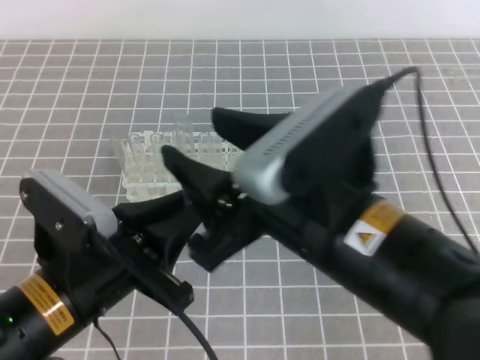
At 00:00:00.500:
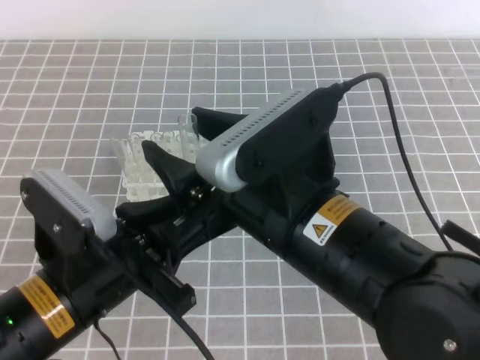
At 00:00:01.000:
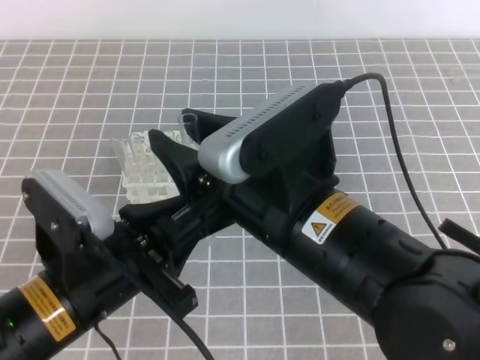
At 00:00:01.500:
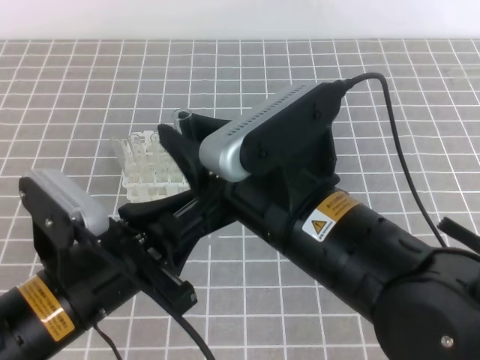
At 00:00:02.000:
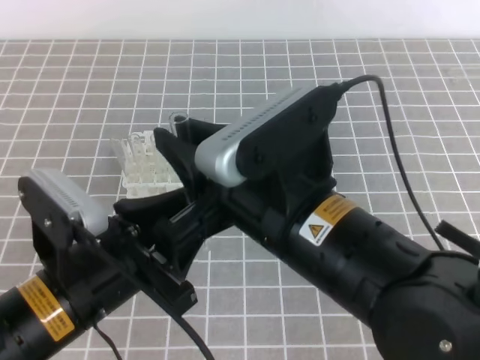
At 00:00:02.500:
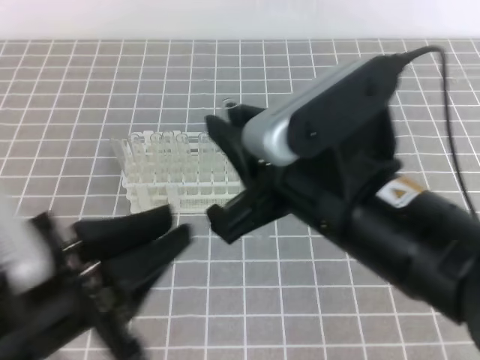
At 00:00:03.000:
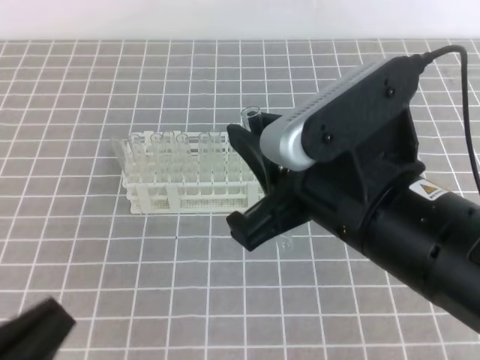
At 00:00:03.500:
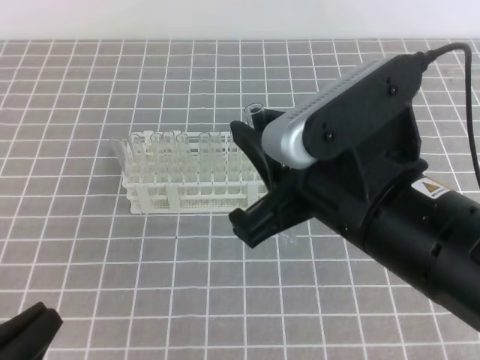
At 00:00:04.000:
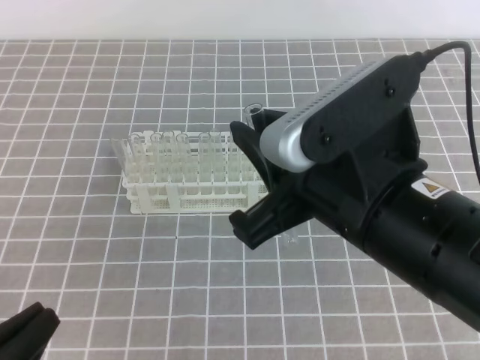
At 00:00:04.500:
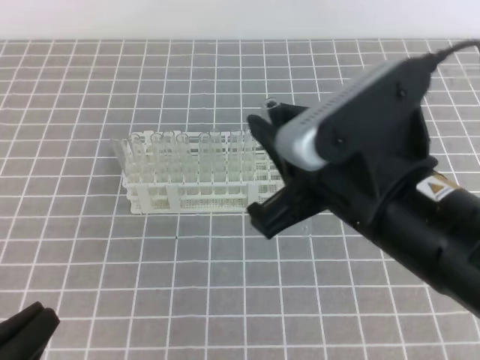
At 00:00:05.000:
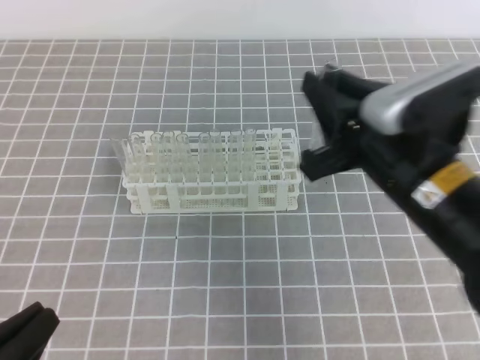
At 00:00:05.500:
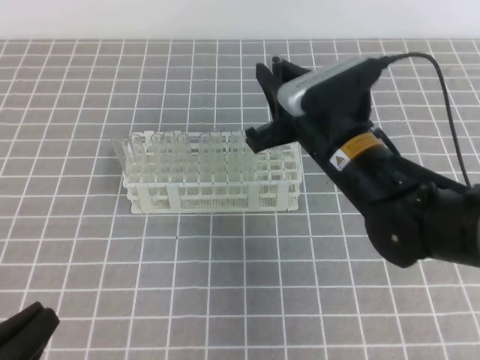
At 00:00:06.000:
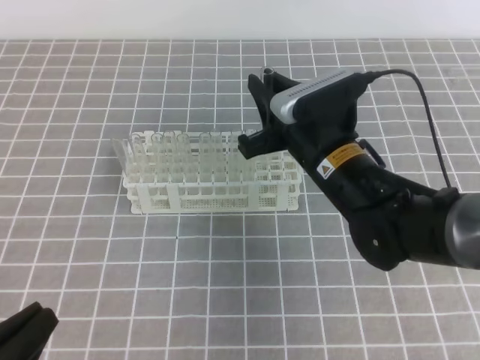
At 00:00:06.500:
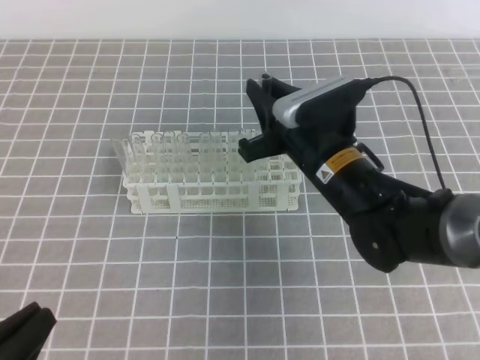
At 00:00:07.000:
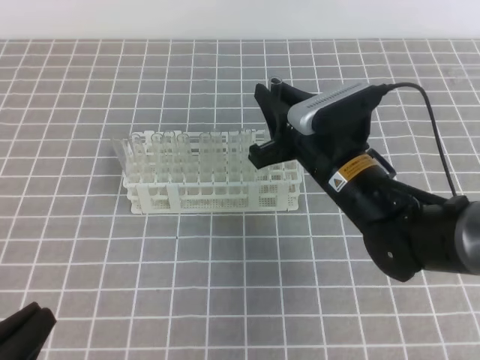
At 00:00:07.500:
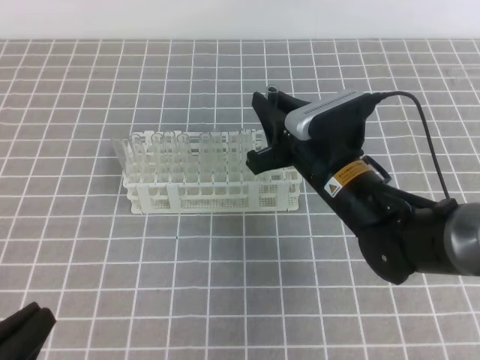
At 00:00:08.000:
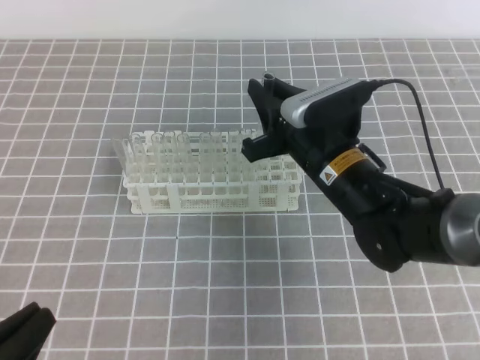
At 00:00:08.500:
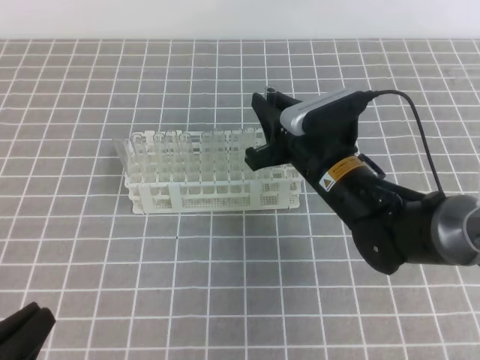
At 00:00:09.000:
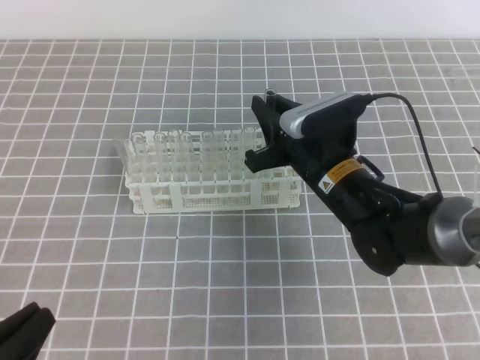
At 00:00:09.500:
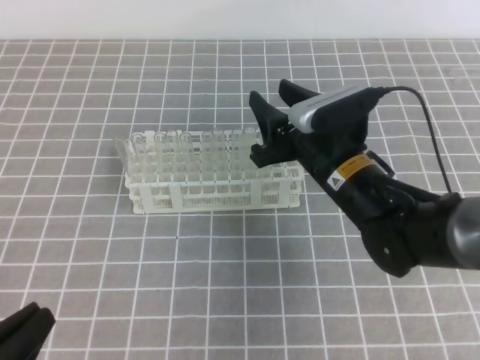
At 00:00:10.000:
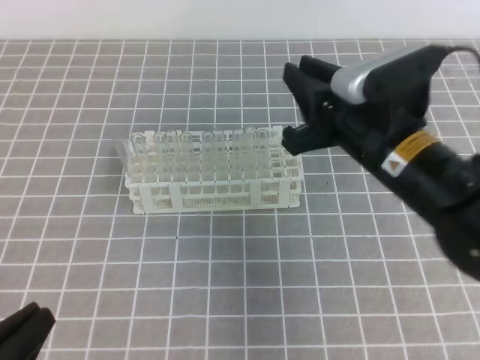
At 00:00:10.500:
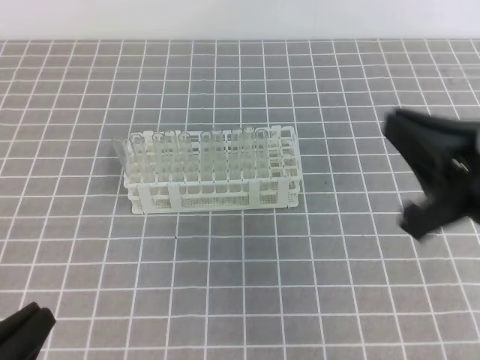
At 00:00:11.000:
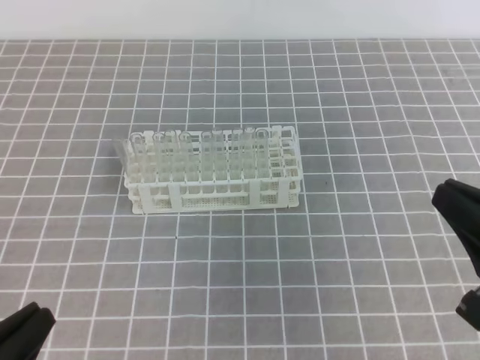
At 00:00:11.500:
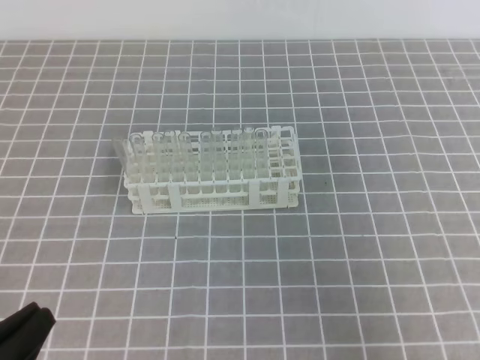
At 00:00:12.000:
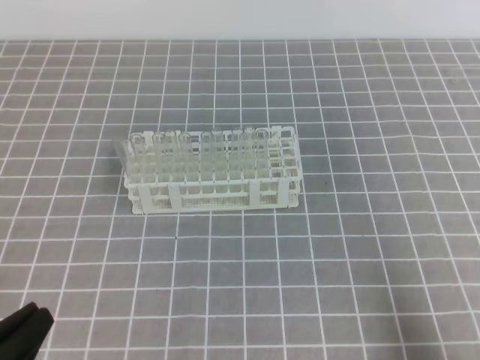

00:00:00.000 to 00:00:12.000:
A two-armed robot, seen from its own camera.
00:00:00.000 to 00:00:02.000: The left gripper opens its fingers. Meanwhile the right gripper closes.
00:00:02.000 to 00:00:04.000: The left gripper moves to the left, backward and downward, approximately 15 cm, and closes. Meanwhile the right gripper ends up some 5 cm from where it was.
00:00:04.000 to 00:00:06.000: The right gripper heads forward and downward, covering about 20 cm.
00:00:06.000 to 00:00:08.000: There are only small adjustments of the grippers.
00:00:08.000 to 00:00:10.000: The right gripper goes about 5 cm upward, and opens, then closes again.
00:00:10.000 to 00:00:12.000: The right gripper travels backward and to the right by about 30 cm, and closes its fingers.

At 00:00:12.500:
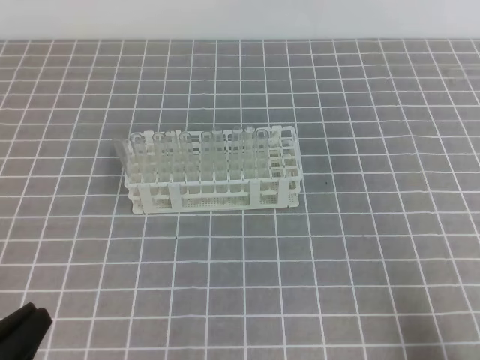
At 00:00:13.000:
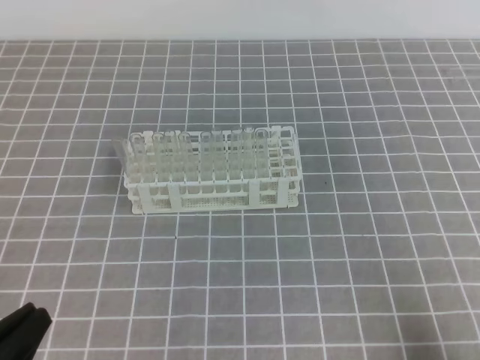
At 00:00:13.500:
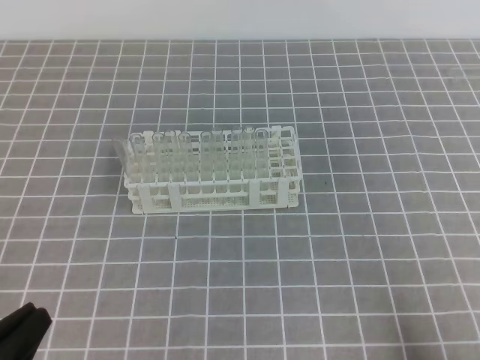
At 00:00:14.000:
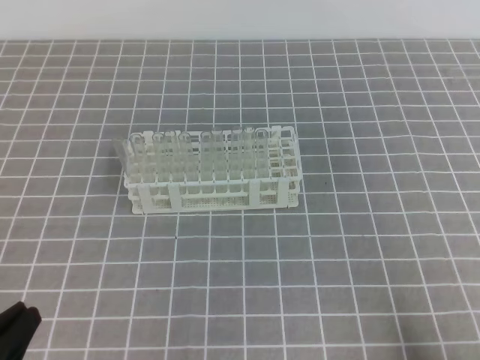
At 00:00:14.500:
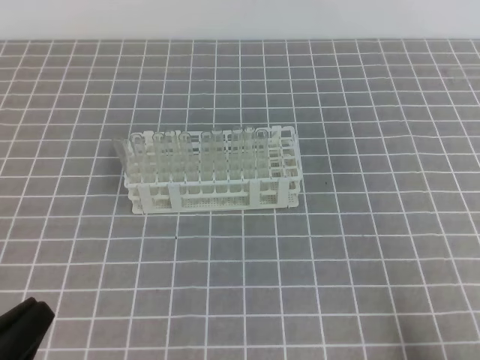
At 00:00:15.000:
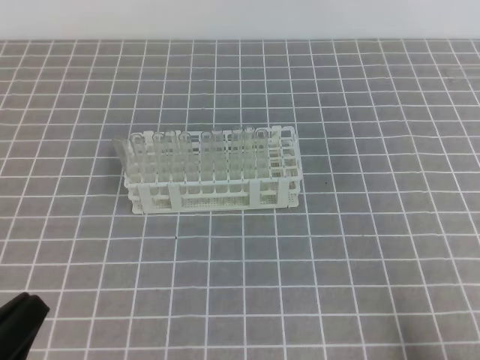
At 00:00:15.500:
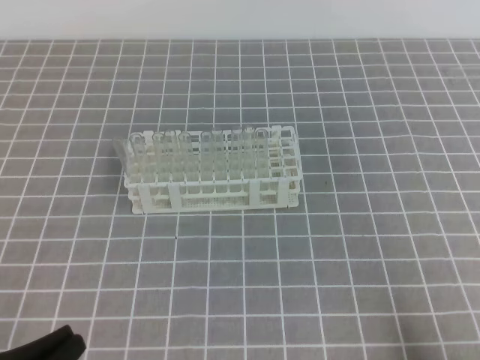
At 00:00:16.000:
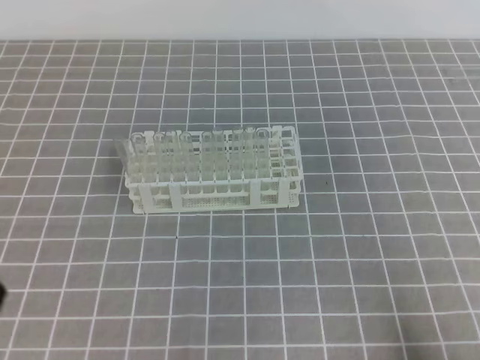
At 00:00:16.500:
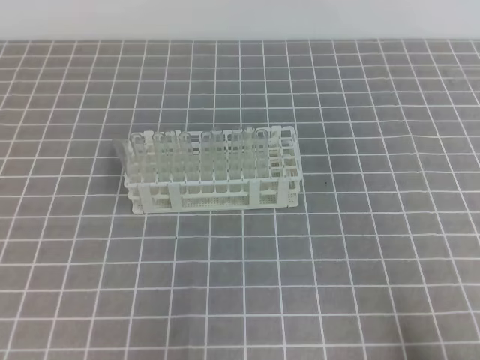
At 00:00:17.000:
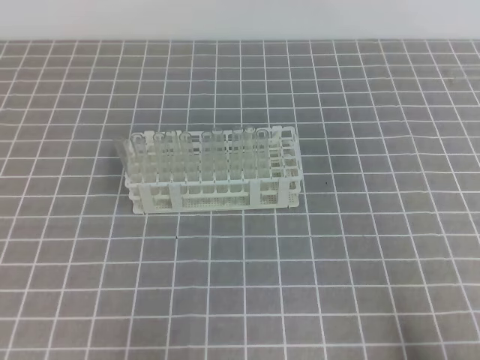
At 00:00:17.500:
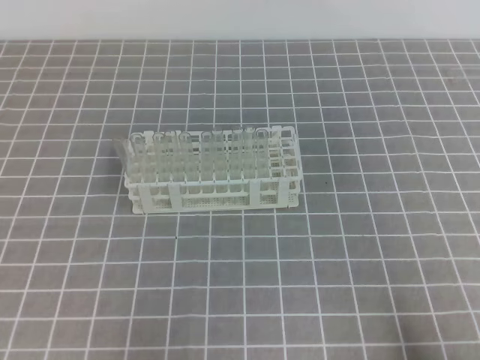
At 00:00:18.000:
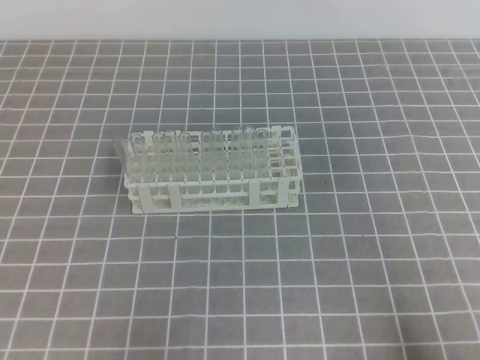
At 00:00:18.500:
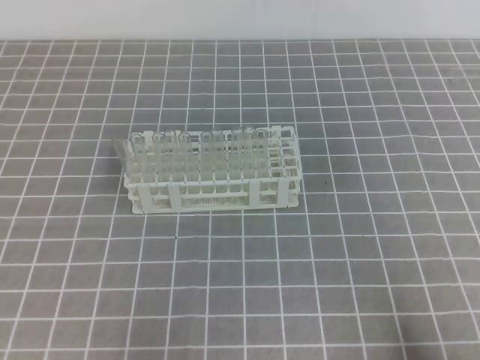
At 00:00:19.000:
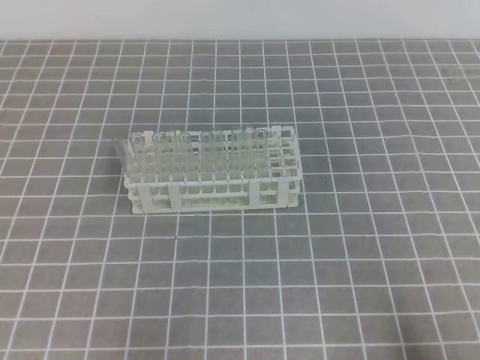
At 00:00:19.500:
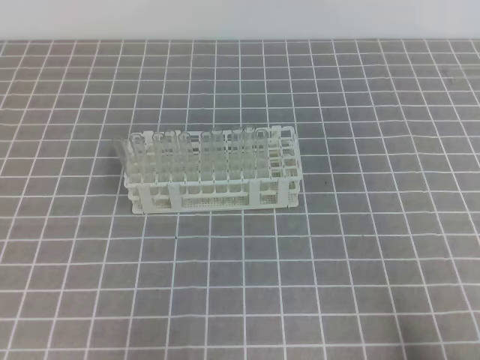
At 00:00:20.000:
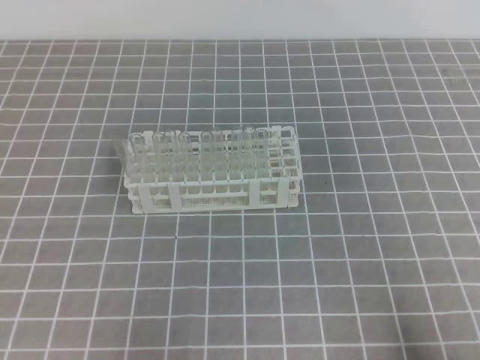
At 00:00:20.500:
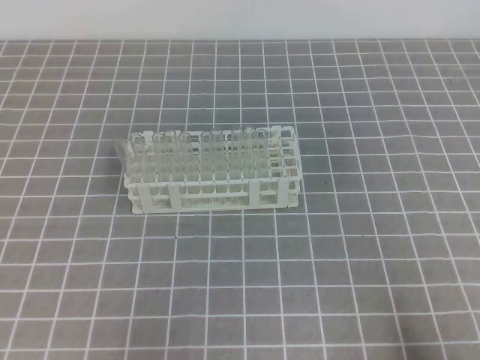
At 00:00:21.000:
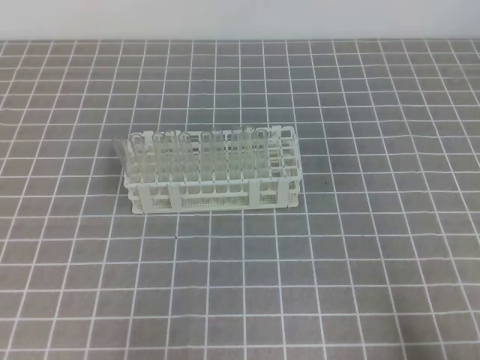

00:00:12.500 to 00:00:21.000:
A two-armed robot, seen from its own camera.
00:00:19.000 to 00:00:21.000: Both grippers stay about where they are.
